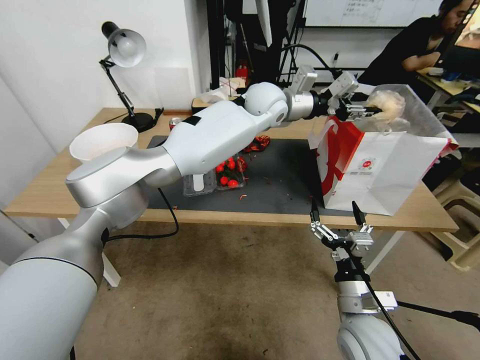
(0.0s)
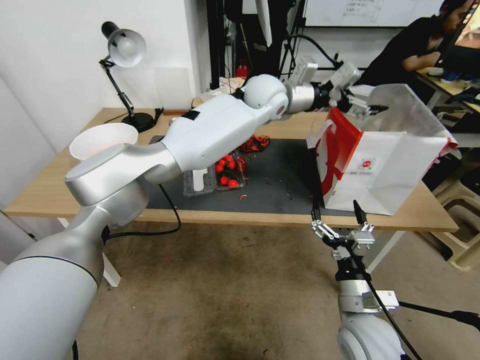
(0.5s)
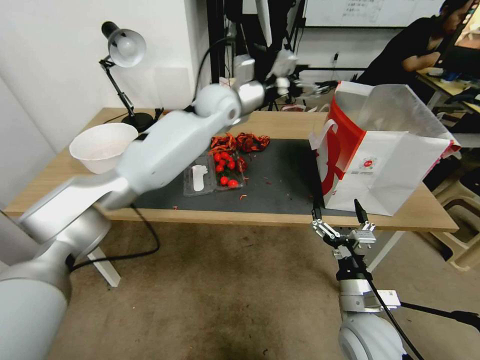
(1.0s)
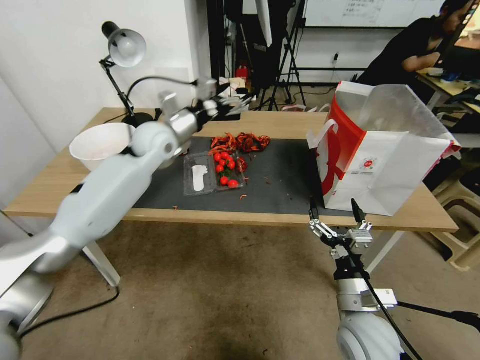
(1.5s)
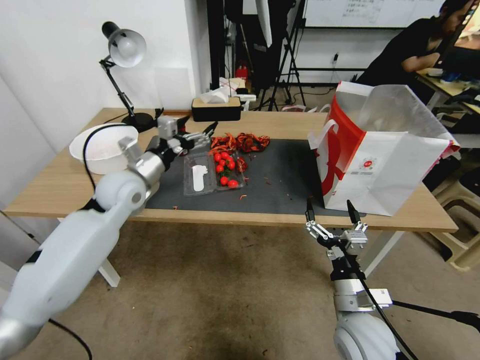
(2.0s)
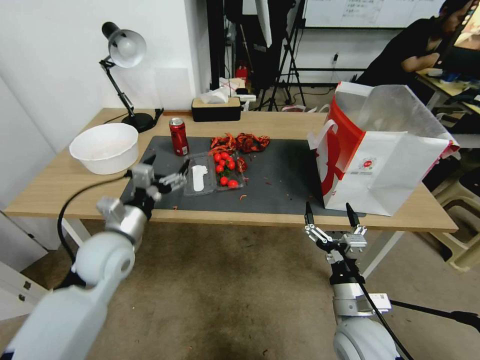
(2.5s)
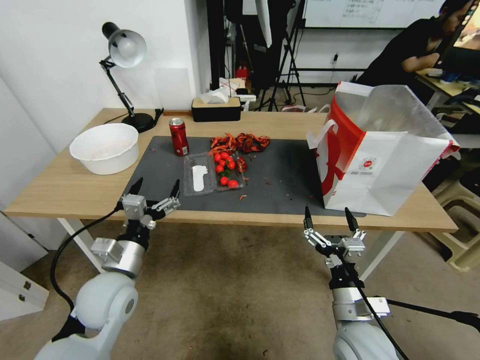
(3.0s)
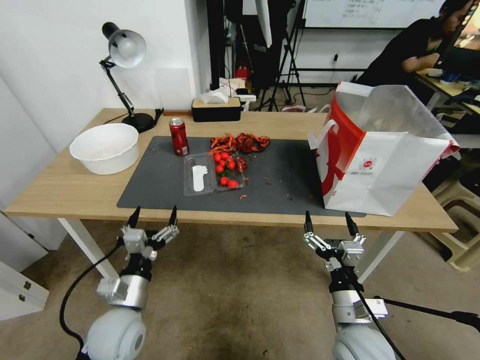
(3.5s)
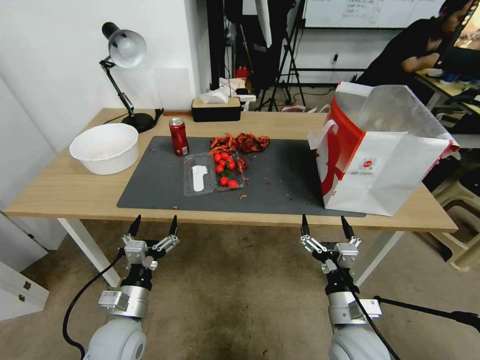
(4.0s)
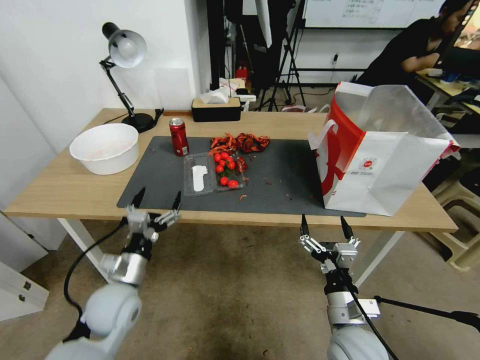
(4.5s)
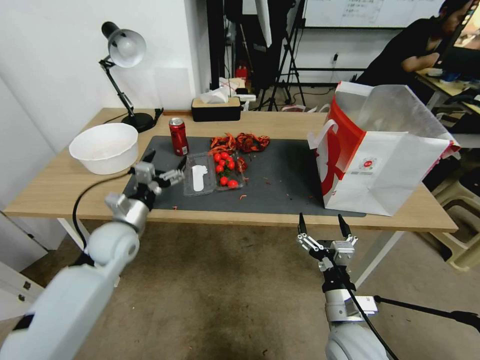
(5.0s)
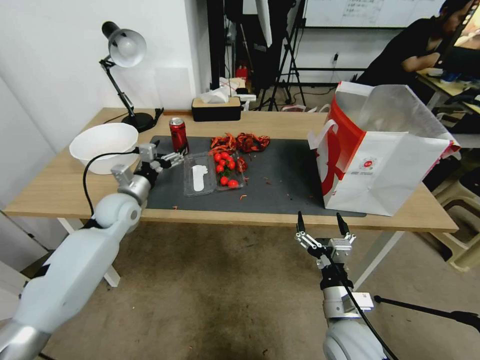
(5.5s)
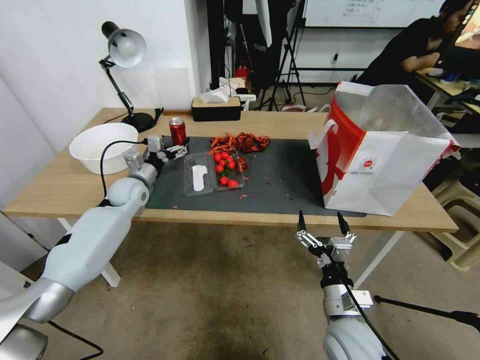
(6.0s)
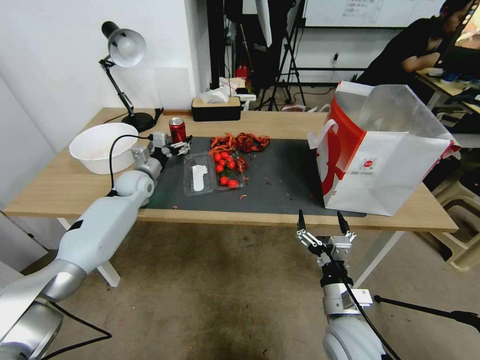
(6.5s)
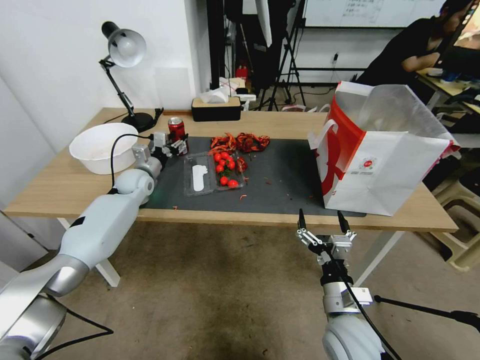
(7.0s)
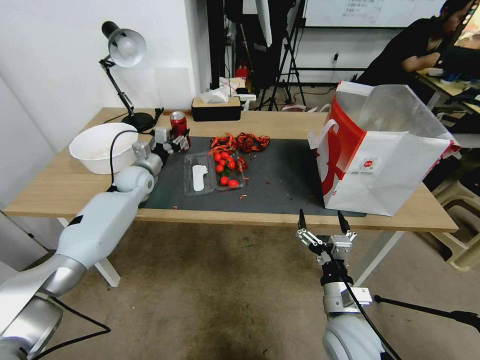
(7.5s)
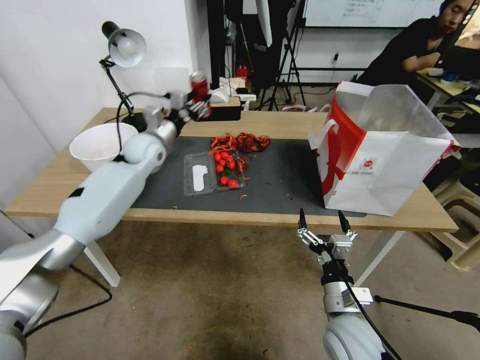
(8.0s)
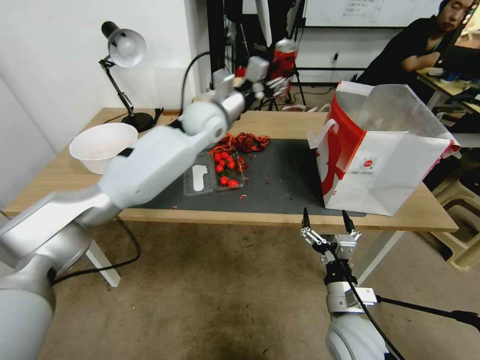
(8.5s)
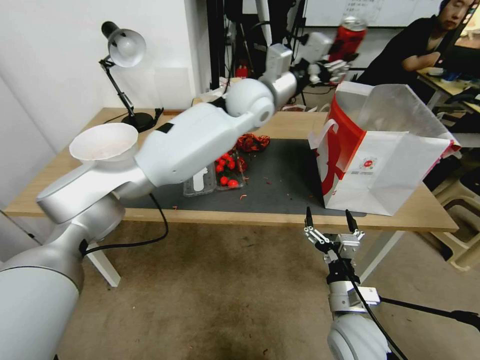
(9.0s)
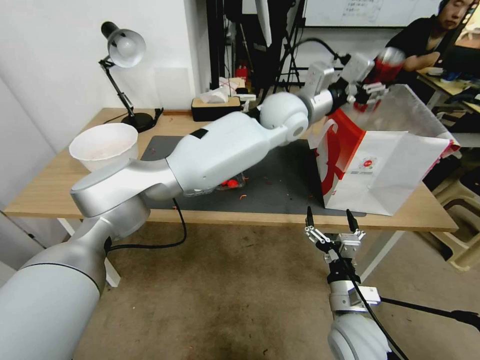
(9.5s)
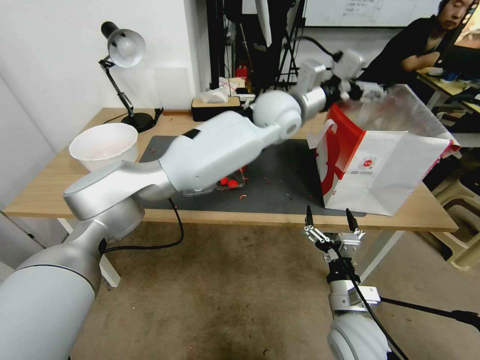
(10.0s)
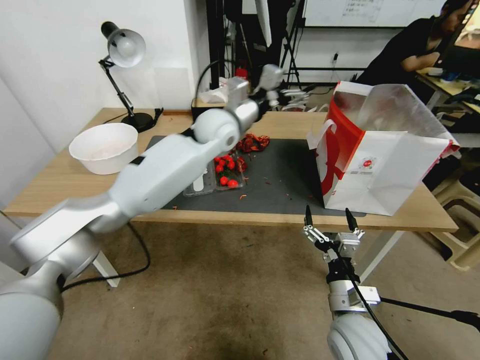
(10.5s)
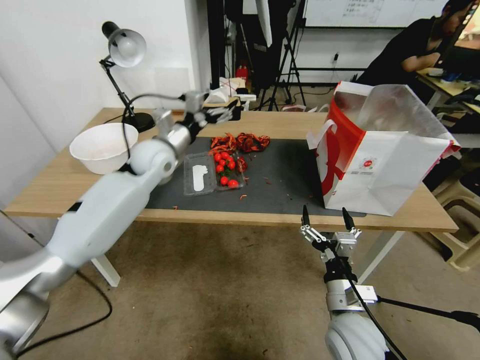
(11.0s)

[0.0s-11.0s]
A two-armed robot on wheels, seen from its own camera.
0.0s to 2.0s: The left gripper shifts roughly 35 cm to the left, backward and downward, and opens its fingers.
2.0s to 3.5s: The left gripper travels backward and downward by approximately 25 cm.
3.5s to 5.5s: The left gripper shifts roughly 20 cm forward.
5.5s to 7.5s: The left gripper moves forward, approximately 15 cm, and closes.
7.5s to 9.0s: The left gripper shifts some 40 cm to the right and upward.
9.0s to 11.0s: The left gripper goes some 25 cm to the left and downward, and opens up.

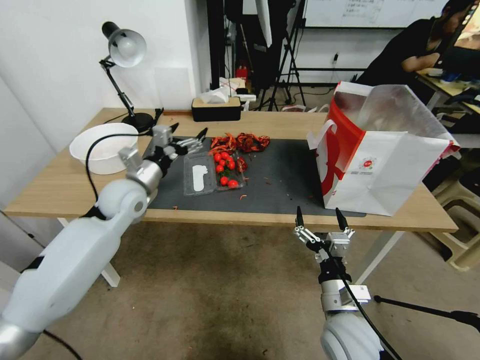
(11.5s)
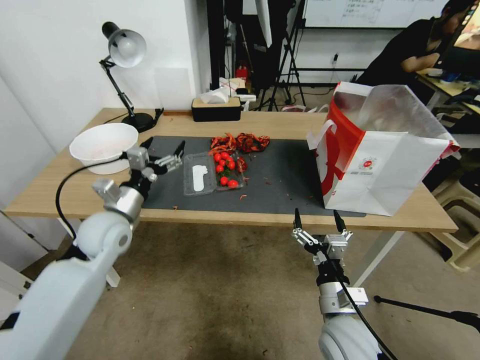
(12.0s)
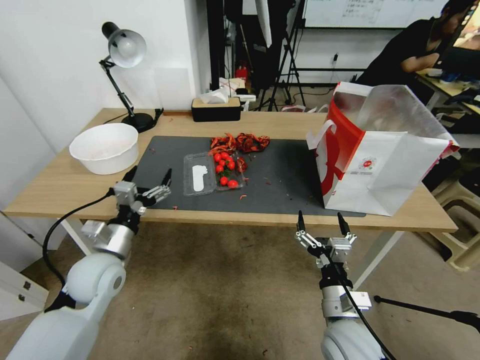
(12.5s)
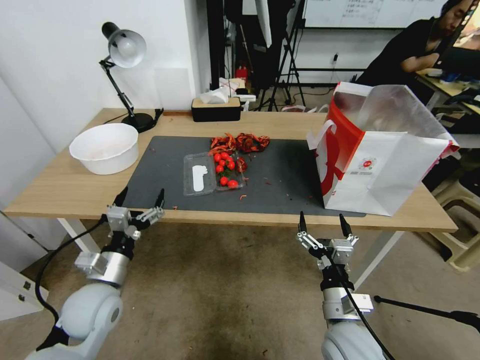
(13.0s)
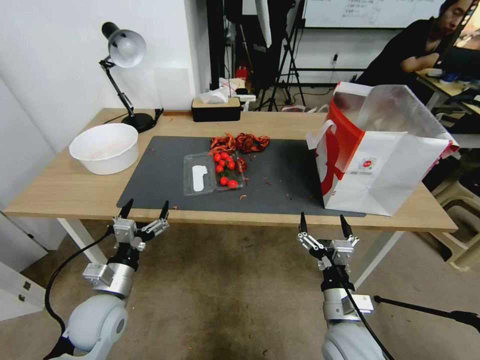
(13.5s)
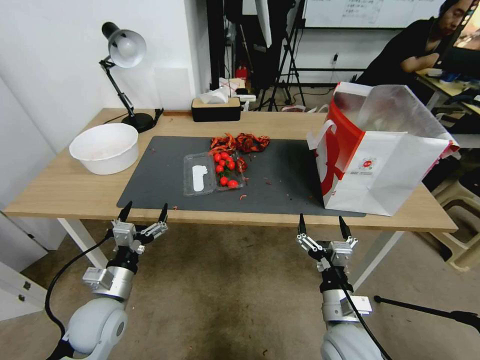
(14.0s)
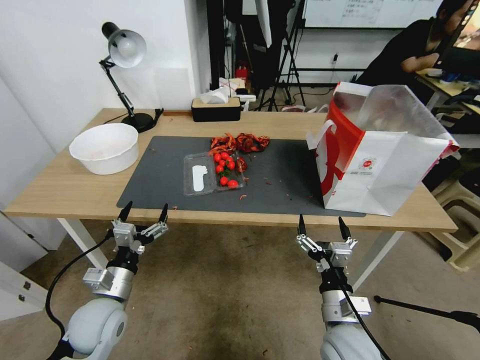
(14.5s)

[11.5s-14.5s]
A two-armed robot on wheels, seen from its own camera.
11.5s to 13.0s: The left gripper moves backward and downward, about 20 cm.
13.0s to 14.5s: The grippers stay close to where they were, moving slightly.
